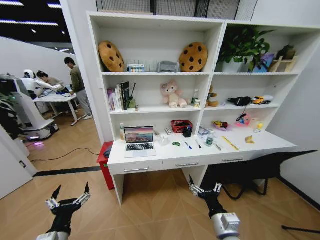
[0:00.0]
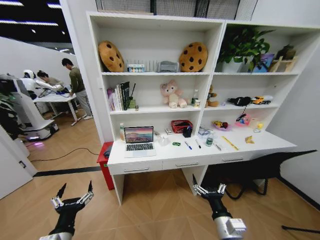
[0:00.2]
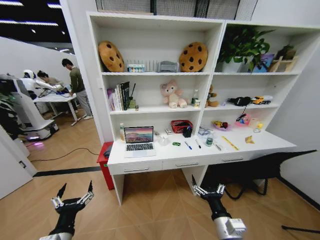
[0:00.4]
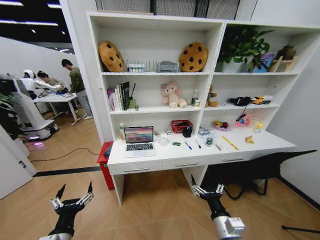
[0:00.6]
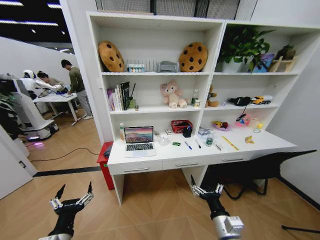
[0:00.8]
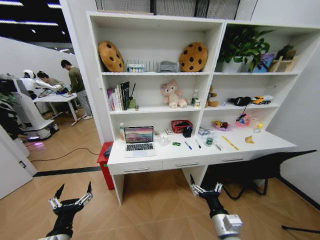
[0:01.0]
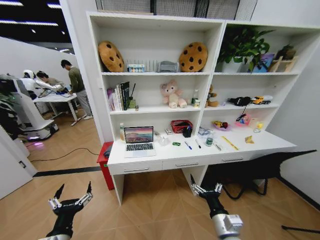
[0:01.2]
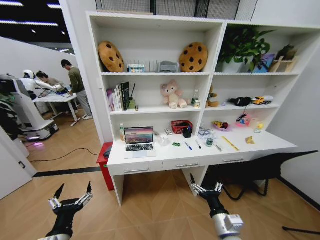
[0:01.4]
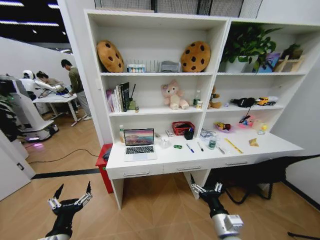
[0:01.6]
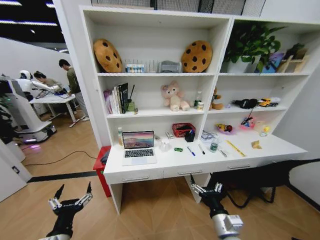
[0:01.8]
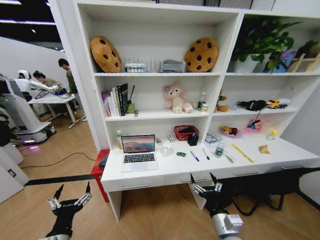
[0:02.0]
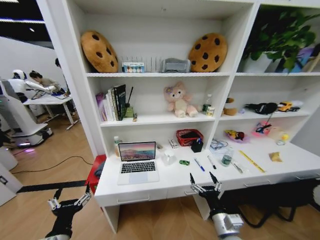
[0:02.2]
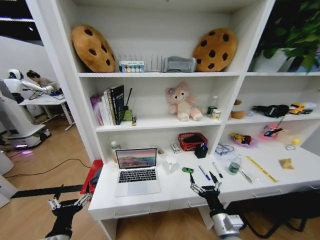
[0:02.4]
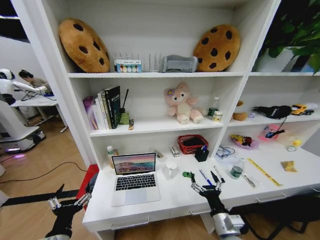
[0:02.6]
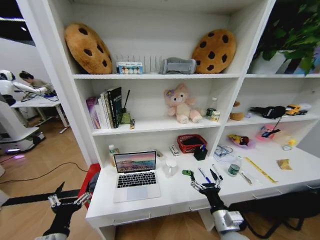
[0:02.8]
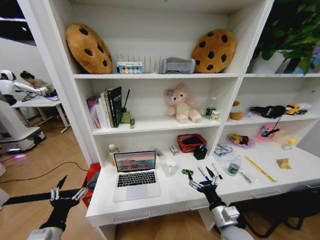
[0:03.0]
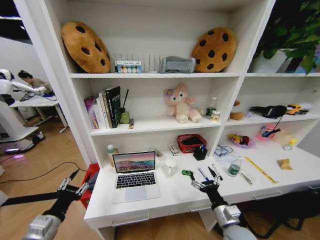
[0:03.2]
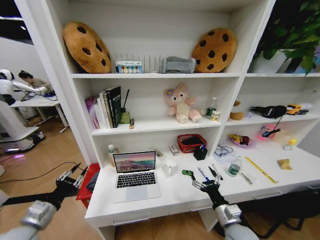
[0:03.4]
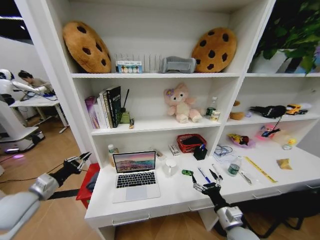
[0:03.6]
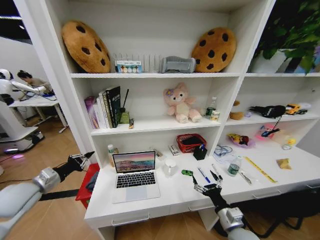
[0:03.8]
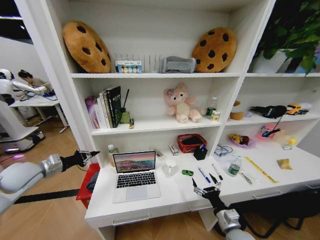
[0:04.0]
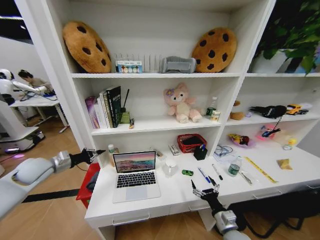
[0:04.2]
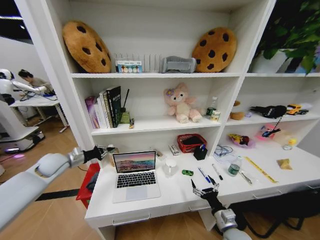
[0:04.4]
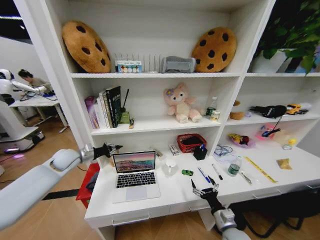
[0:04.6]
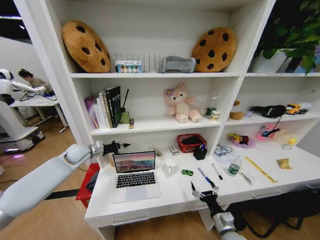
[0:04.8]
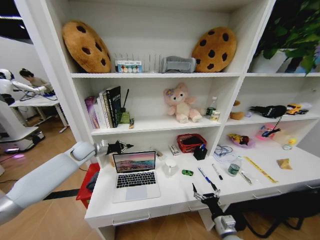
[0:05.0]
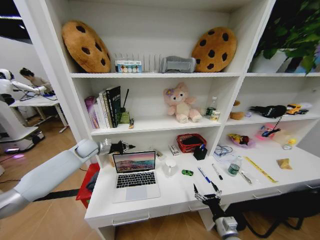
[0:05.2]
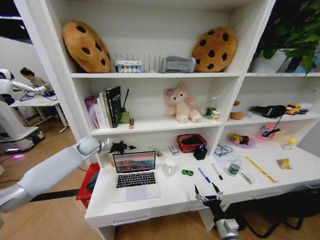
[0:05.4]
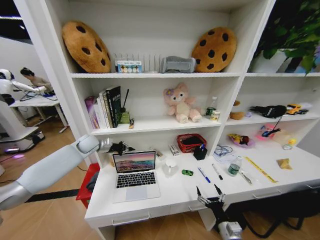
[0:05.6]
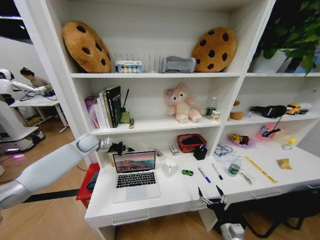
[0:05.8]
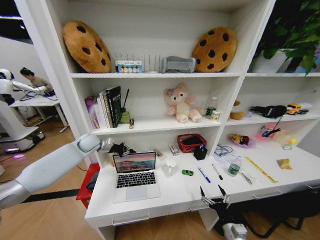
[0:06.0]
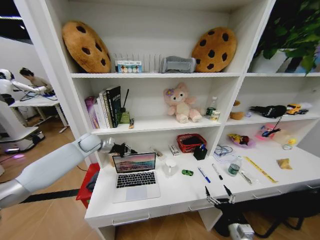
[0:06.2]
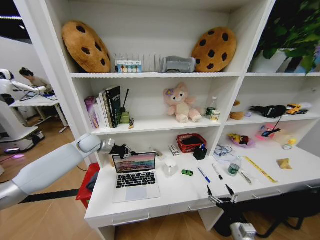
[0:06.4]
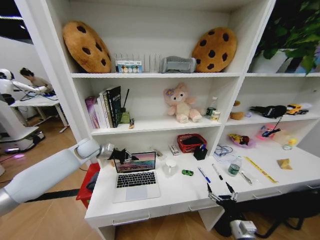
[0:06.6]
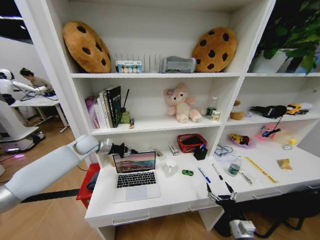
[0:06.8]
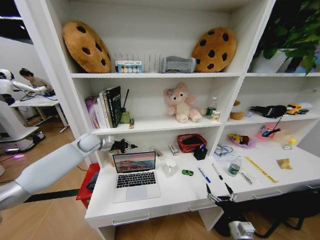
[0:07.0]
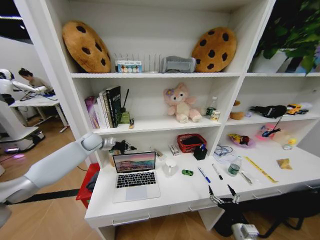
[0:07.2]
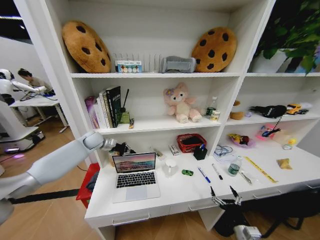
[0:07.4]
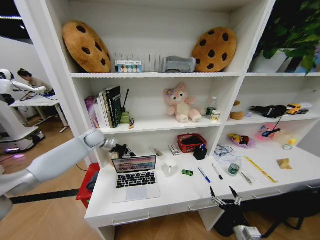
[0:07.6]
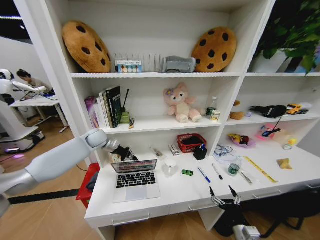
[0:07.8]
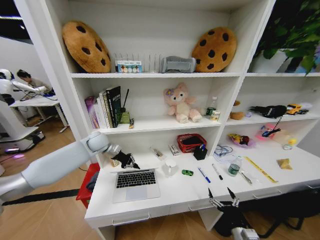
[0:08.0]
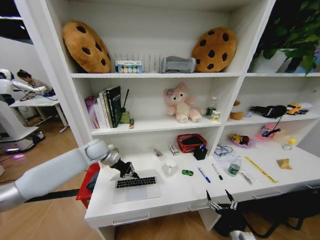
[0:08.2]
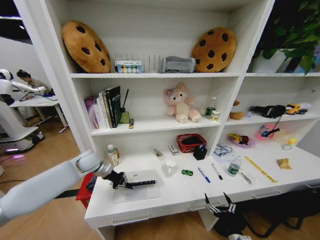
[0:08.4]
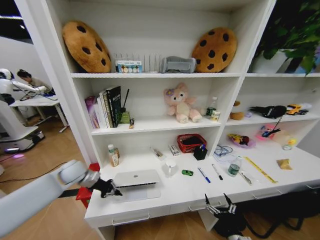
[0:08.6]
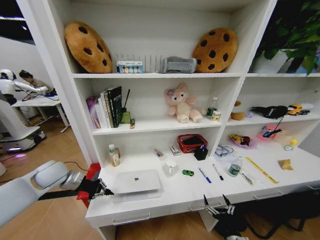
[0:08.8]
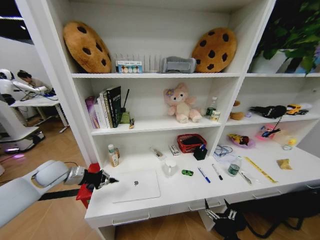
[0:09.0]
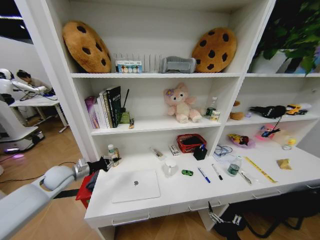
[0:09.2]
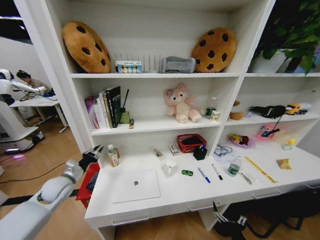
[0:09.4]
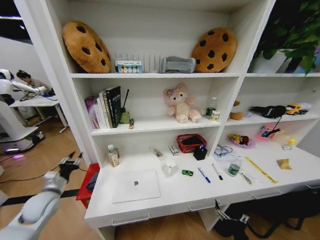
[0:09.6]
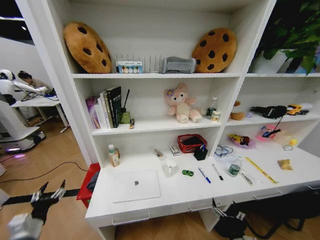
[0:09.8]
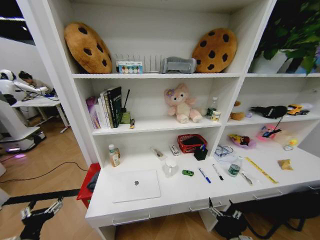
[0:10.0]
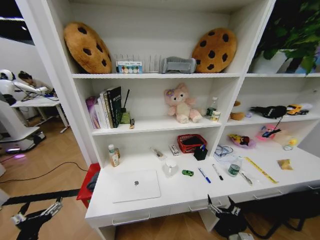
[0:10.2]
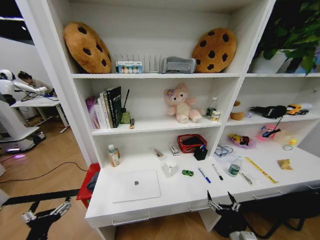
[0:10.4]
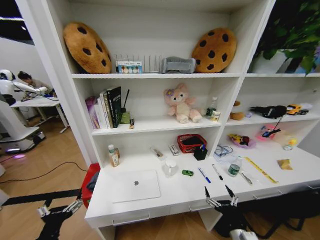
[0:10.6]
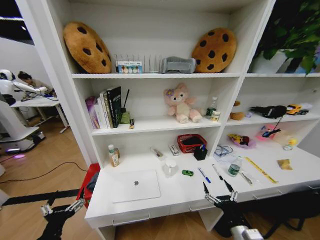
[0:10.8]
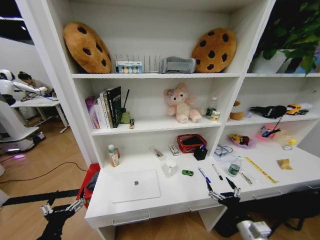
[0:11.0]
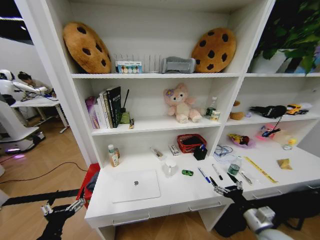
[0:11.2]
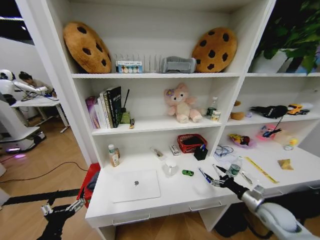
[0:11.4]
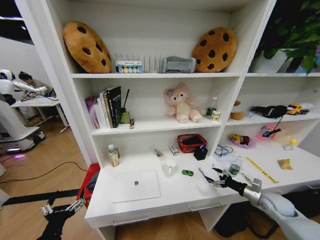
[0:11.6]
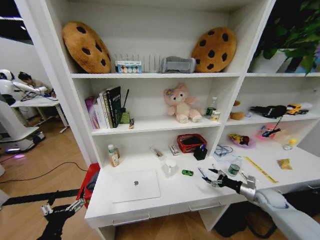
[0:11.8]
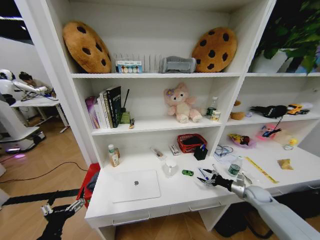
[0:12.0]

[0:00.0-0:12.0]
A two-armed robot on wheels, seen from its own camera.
Task of the whole recording: Organize the objects on the table.
0:03.0 to 0:04.4: The right gripper shifts some 5 cm downward; the left gripper travels forward by about 30 cm, and closes up.
0:04.4 to 0:06.0: The left gripper moves forward and to the right, about 15 cm. Meanwhile the right gripper moves some 5 cm.
0:06.0 to 0:07.6: The grippers move only a little.
0:07.6 to 0:09.0: The left gripper shifts some 20 cm backward and to the left. Meanwhile the right gripper ends up roughly 5 cm from where it was.
0:09.0 to 0:10.4: The left gripper heads backward, covering roughly 30 cm, and opens up. Meanwhile the right gripper moves upward, some 5 cm.
0:10.4 to 0:12.0: The right gripper travels forward and to the right by about 35 cm.

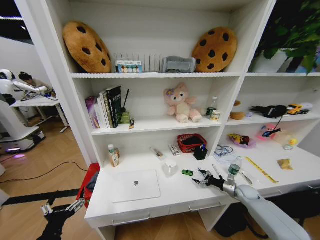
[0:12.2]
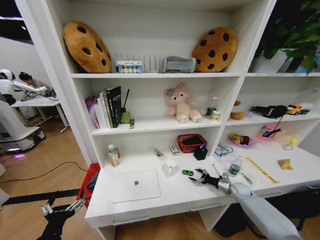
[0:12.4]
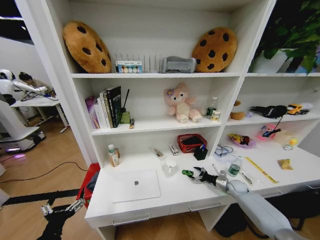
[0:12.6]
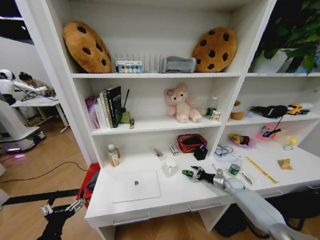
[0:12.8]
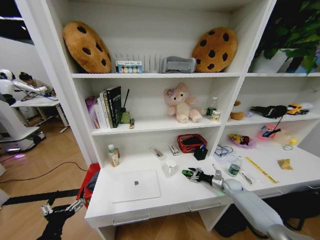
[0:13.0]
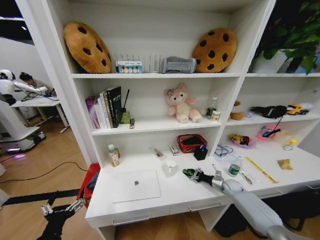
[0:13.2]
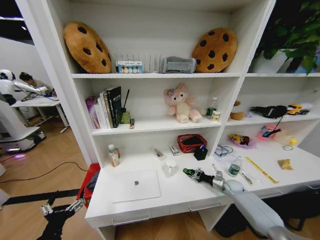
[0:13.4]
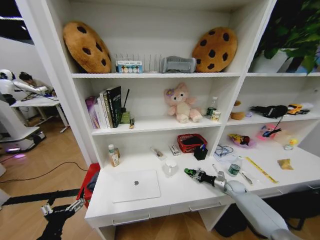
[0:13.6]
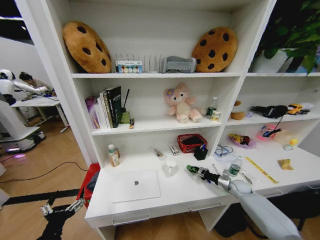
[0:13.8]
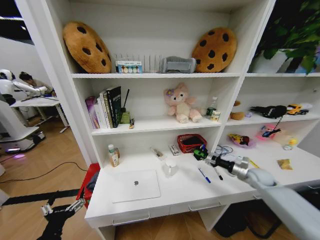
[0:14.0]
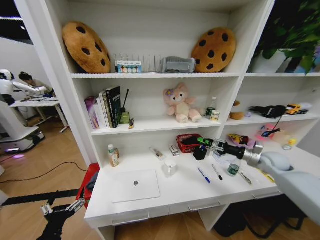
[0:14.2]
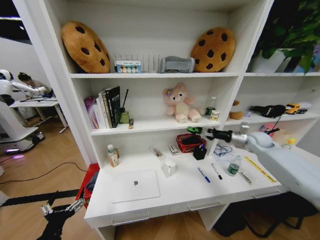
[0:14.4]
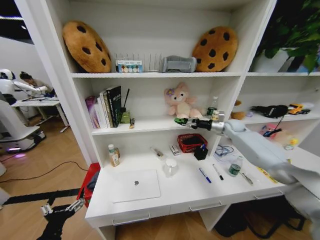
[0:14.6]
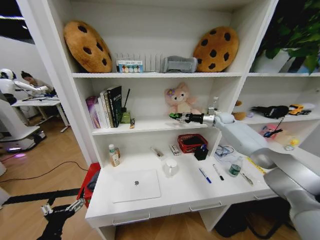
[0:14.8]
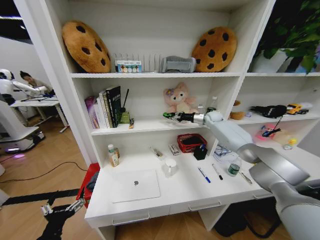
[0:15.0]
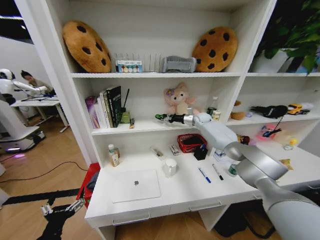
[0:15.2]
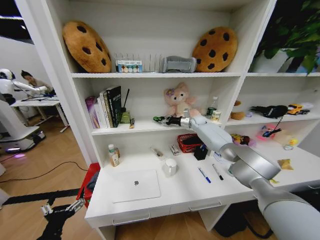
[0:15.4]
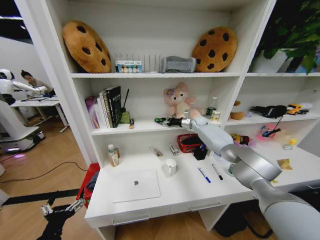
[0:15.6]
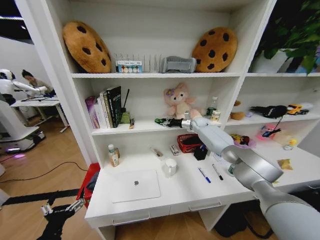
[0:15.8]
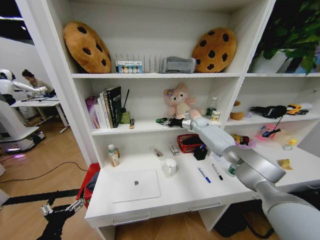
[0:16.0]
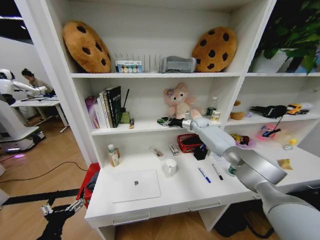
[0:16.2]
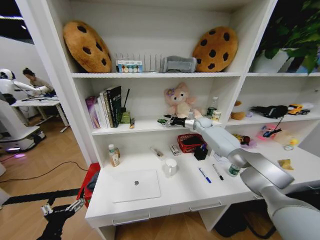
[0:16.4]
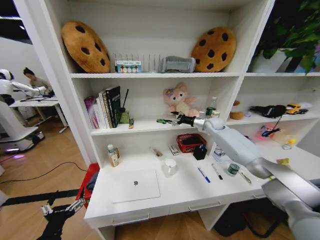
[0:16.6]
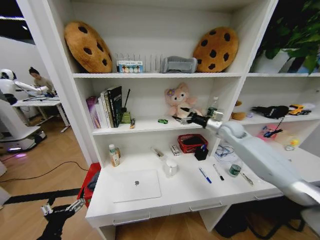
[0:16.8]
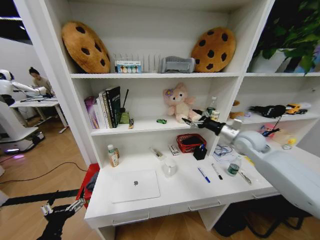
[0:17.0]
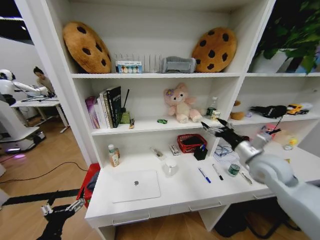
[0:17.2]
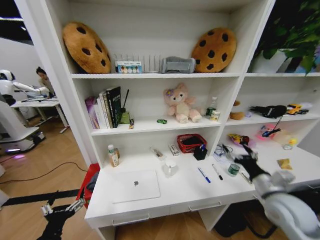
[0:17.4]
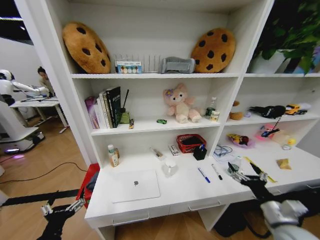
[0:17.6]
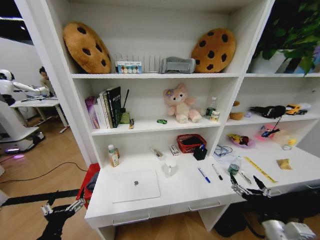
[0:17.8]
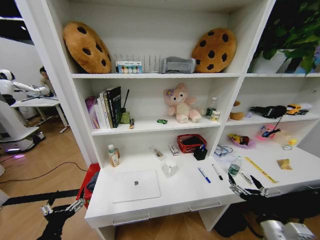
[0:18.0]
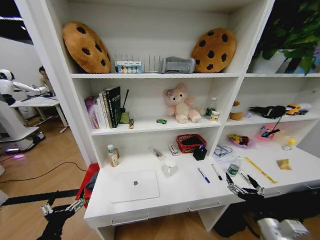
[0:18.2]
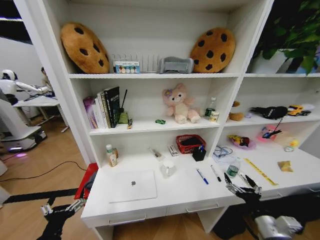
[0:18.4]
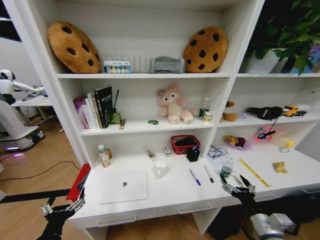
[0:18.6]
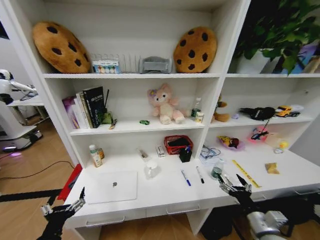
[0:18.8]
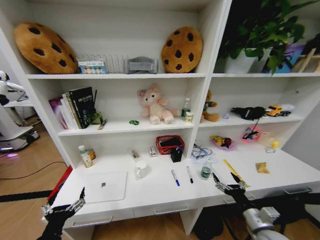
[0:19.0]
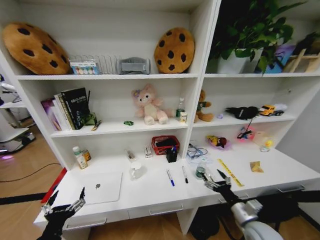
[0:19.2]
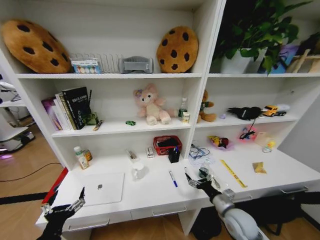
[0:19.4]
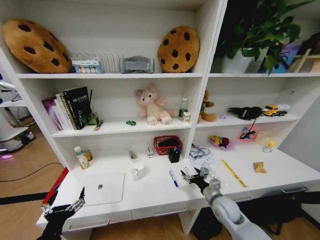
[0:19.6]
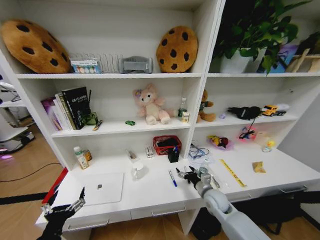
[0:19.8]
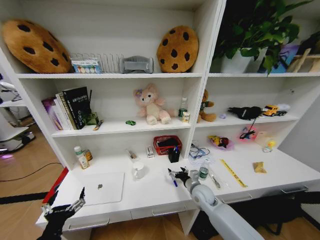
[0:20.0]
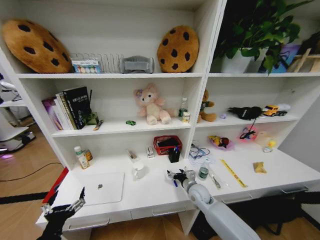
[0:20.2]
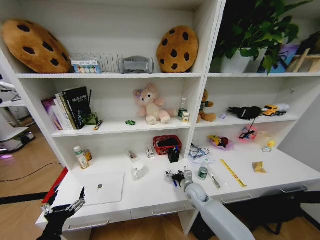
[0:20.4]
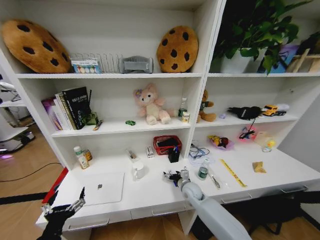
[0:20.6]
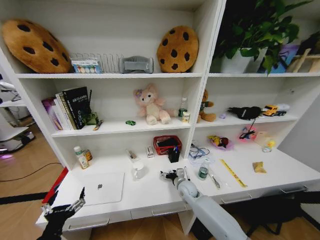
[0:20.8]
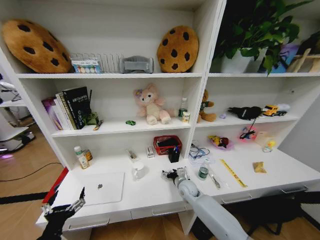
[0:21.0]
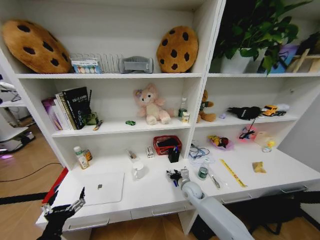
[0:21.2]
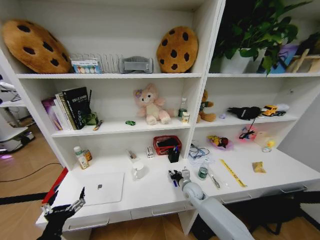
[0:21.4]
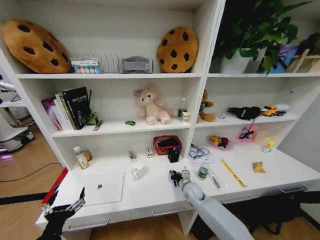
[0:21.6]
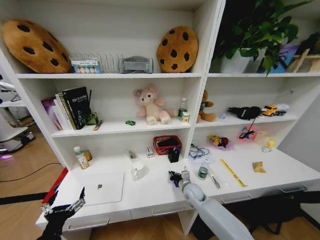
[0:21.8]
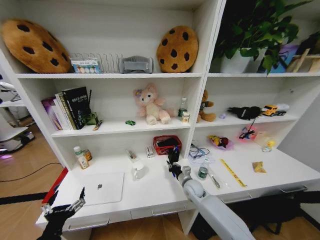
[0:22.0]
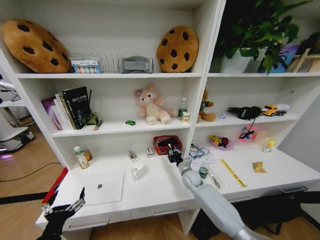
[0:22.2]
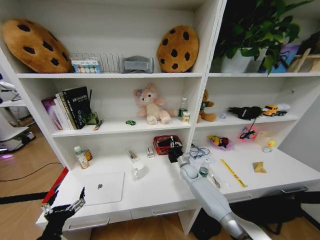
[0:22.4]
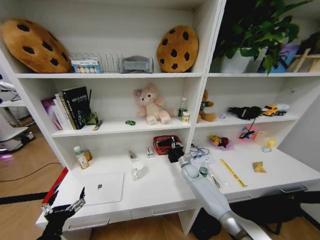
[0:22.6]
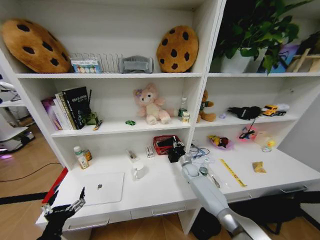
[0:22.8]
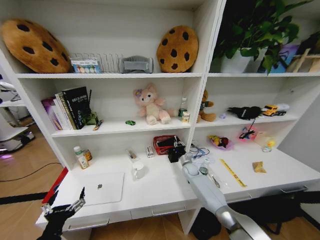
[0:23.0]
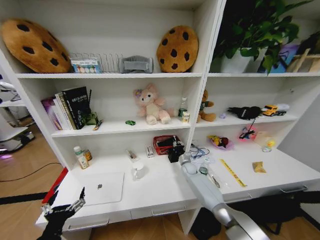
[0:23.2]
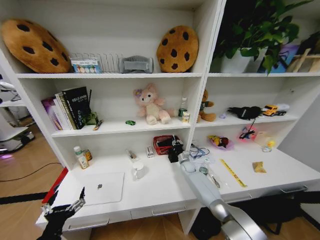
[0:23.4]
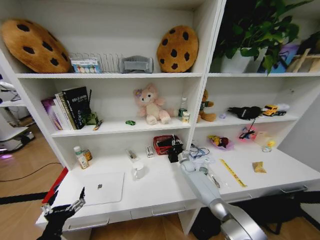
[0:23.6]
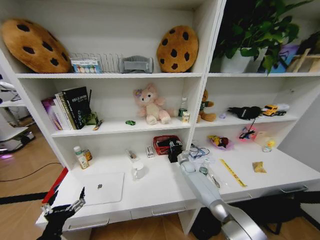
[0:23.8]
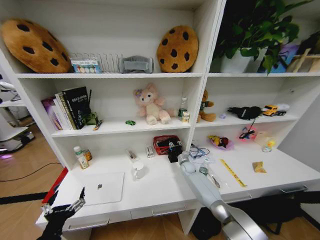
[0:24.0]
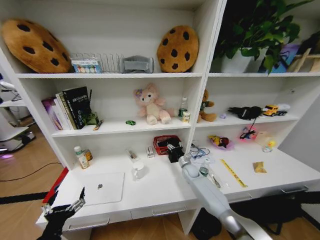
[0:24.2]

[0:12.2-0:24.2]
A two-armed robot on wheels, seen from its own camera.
Task of the whole recording: Organize the objects on the table.
0:12.2 to 0:13.8: The right gripper closes up.
0:13.8 to 0:15.2: The right gripper shifts roughly 50 cm upward, forward and to the left.
0:15.2 to 0:16.6: The right gripper goes some 5 cm backward, and opens.
0:16.6 to 0:18.2: The right gripper goes some 50 cm backward.
0:18.2 to 0:19.8: The right gripper heads forward and to the left, covering approximately 20 cm.
0:19.8 to 0:21.2: The right gripper shifts roughly 10 cm to the left and forward, and closes.
0:21.2 to 0:22.6: The right gripper heads forward, covering roughly 10 cm, and closes up.
0:22.6 to 0:24.2: The right gripper opens its fingers.
